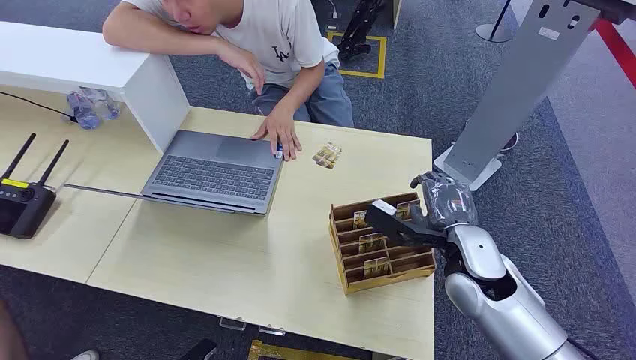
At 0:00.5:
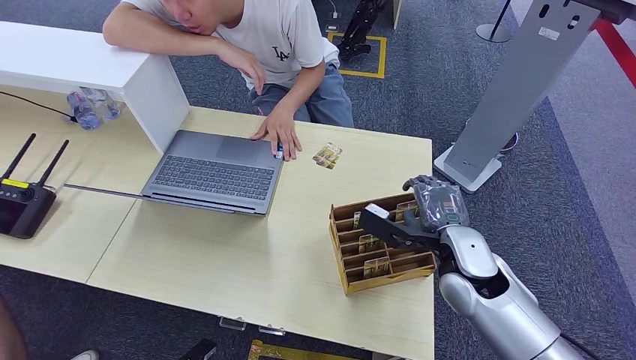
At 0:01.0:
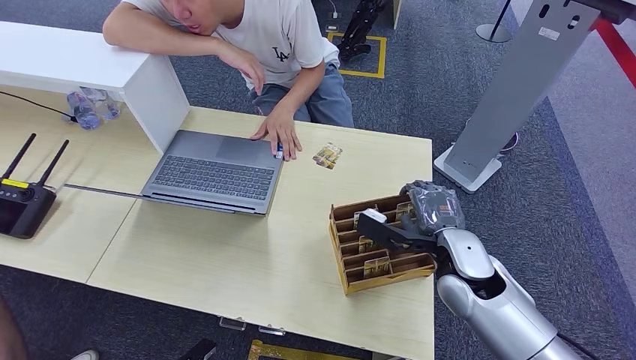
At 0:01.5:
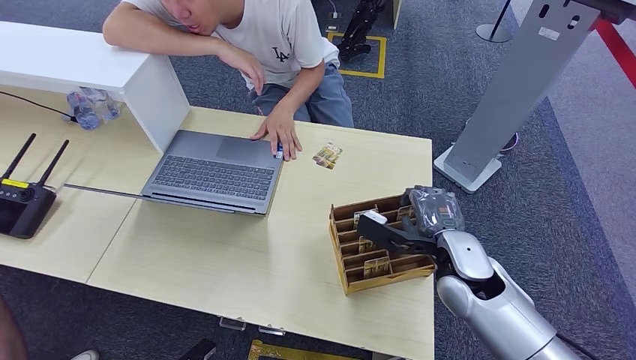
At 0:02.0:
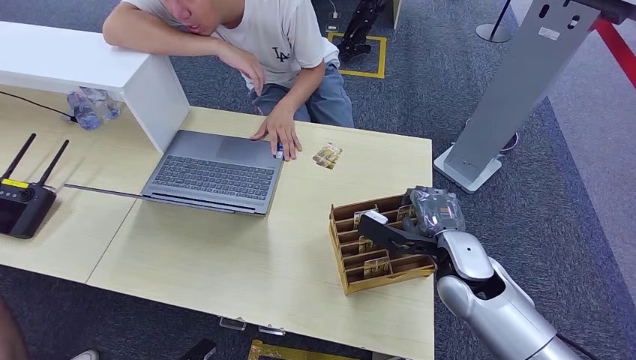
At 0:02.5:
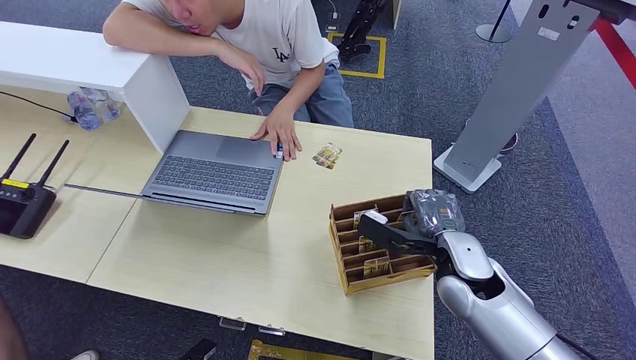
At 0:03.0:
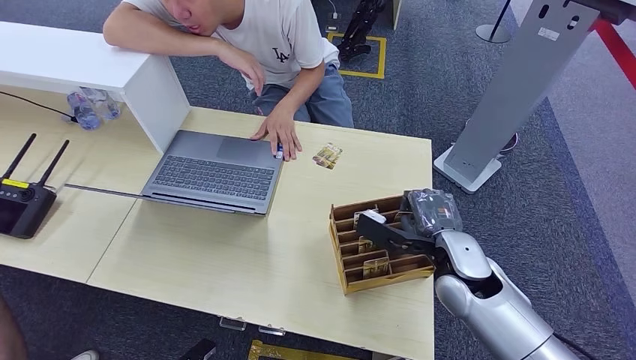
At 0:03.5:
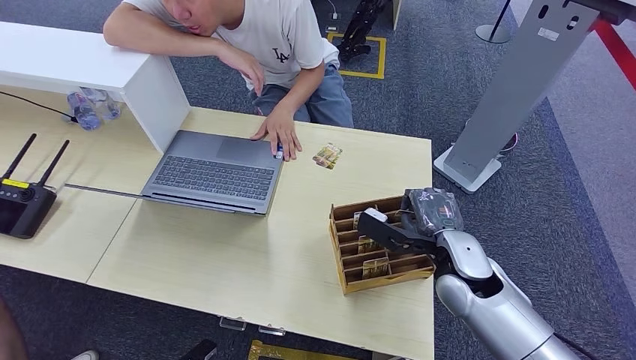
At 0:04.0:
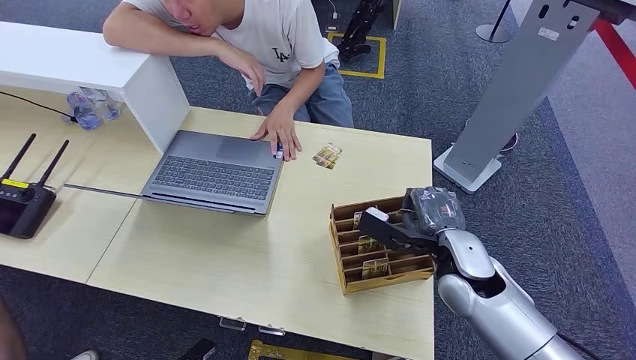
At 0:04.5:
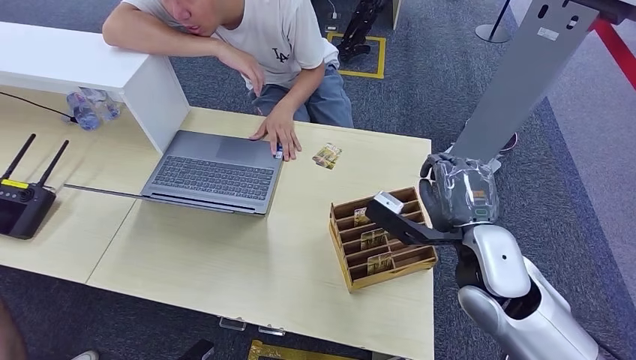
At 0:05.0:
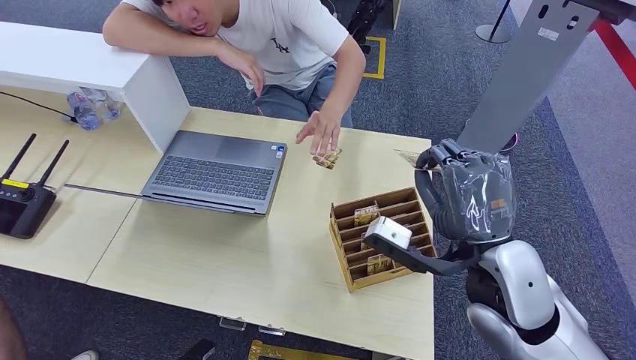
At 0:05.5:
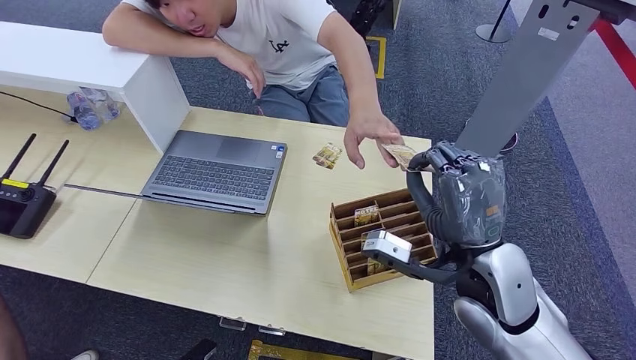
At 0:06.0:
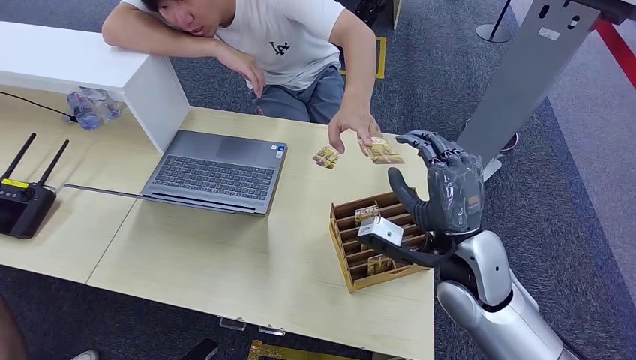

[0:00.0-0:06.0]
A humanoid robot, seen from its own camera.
Step, 0:00.0 to 0:04.5: Pick up the key card from the card box.
Step, 0:05.0 to 0:06.0: Hand the key card to the target.
0:02.0 to 0:04.0: Both hands stay about where they are.
0:04.0 to 0:06.0: The right hand shifts roughly 5 cm upward.
